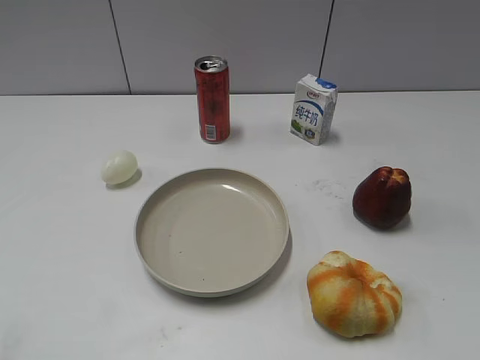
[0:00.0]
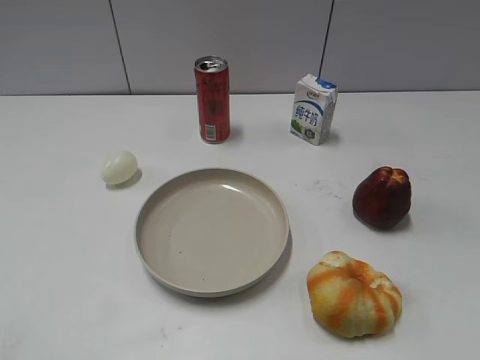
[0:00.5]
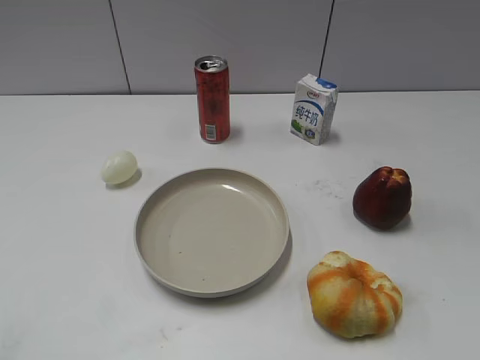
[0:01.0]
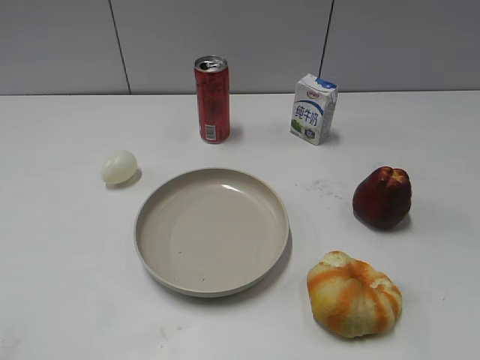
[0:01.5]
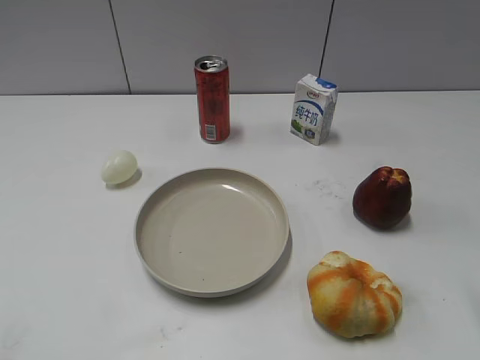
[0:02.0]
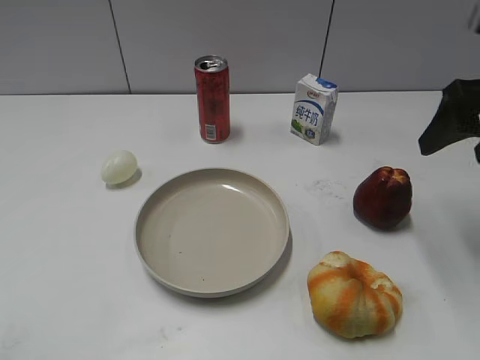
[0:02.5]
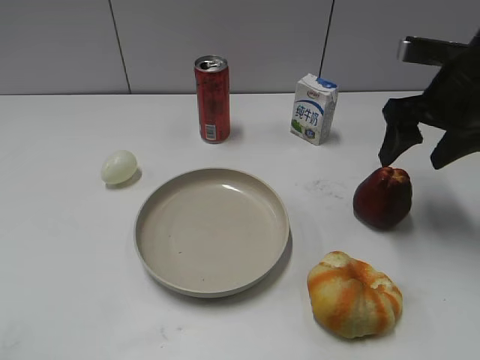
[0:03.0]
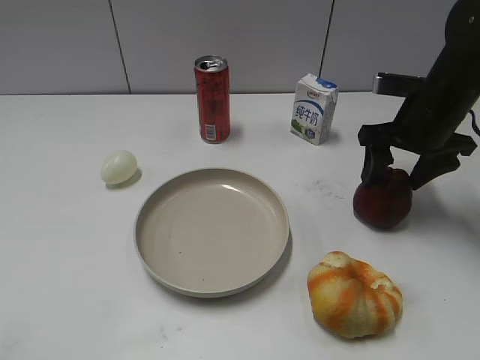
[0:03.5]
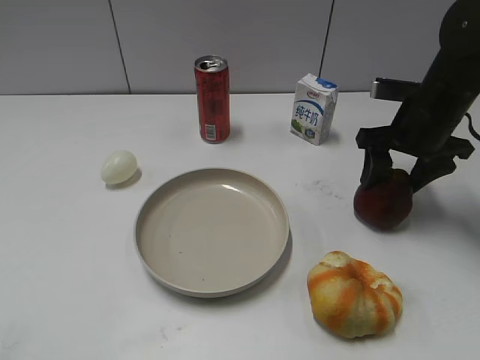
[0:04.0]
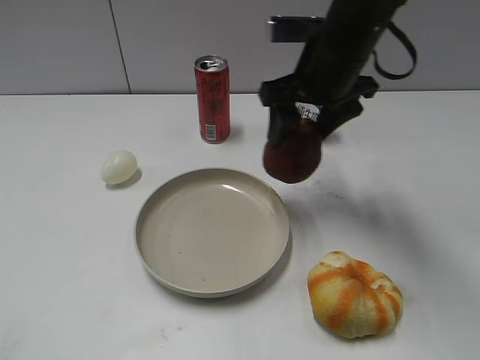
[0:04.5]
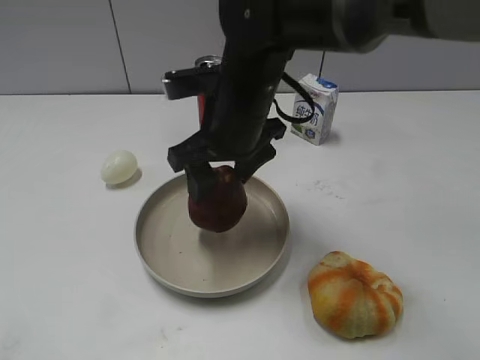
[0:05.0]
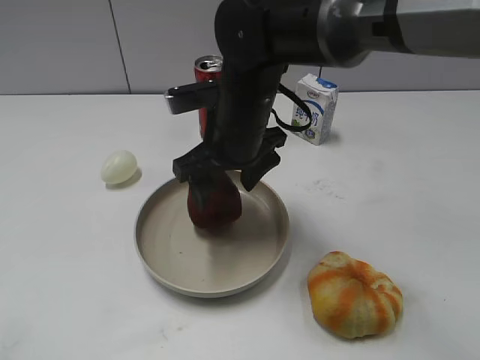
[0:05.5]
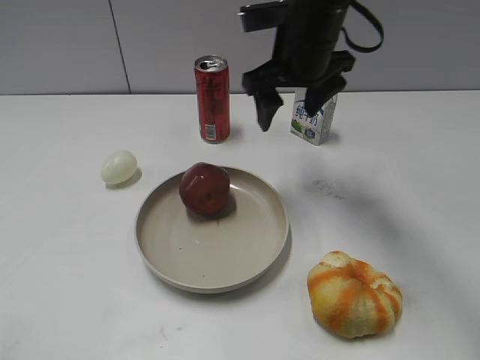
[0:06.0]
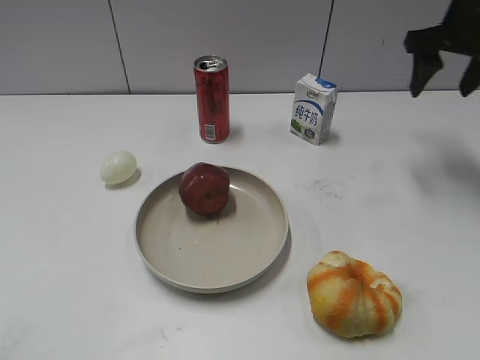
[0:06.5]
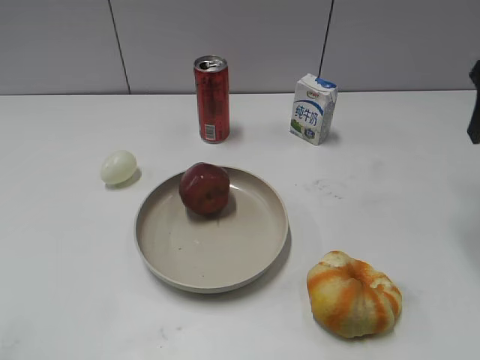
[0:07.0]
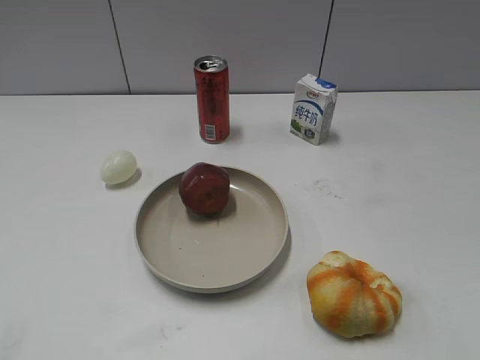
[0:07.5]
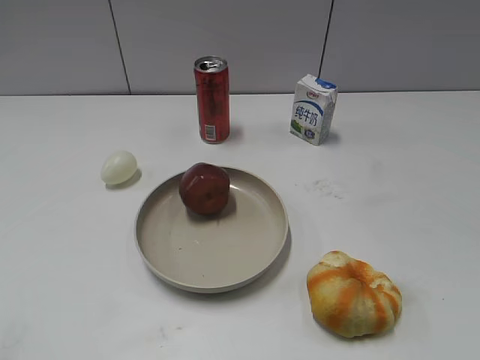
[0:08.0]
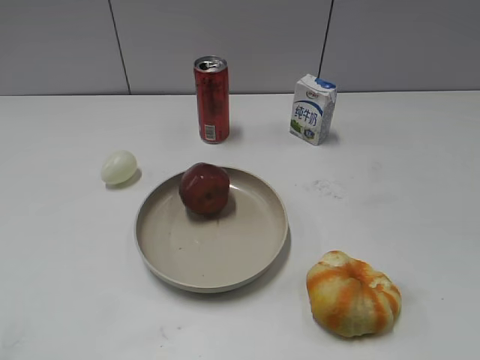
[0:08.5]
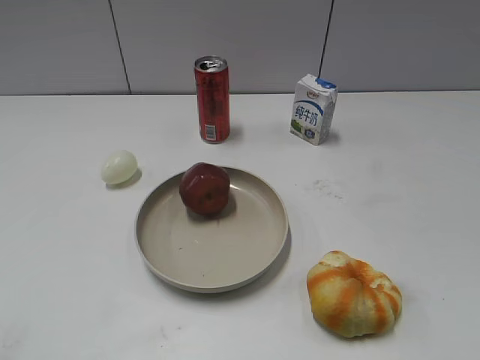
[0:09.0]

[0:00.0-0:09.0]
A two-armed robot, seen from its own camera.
Step, 0:01.5 to 0:04.0: Grasp the apple with right gripper.
Step, 0:04.5 to 0:05.5: Place the apple on the plate with right gripper.
0:02.0 to 0:04.5: The right gripper shifts roughly 30 cm forward and to the left, and closes its fingers.
0:04.5 to 0:07.0: The right gripper moves to the right, about 20 cm, and opens, then closes once more.
